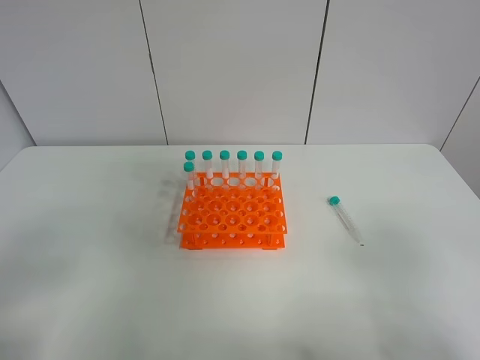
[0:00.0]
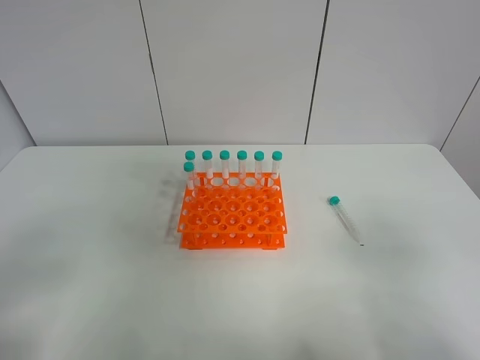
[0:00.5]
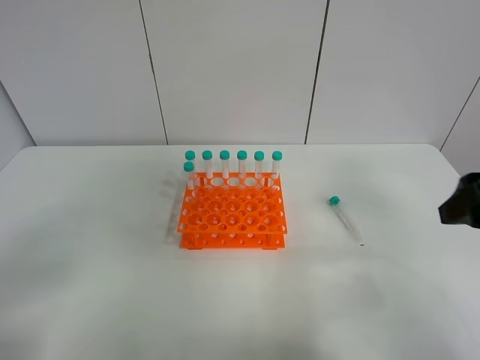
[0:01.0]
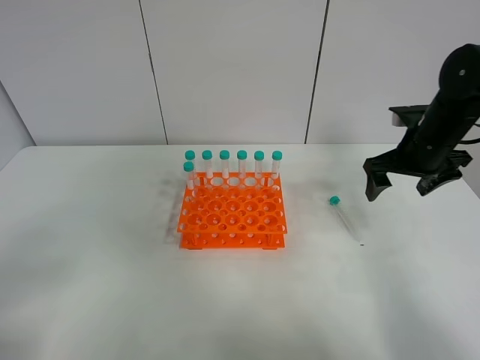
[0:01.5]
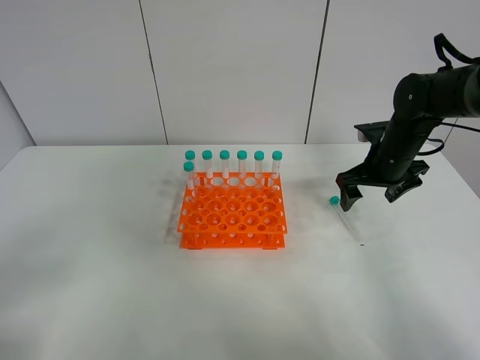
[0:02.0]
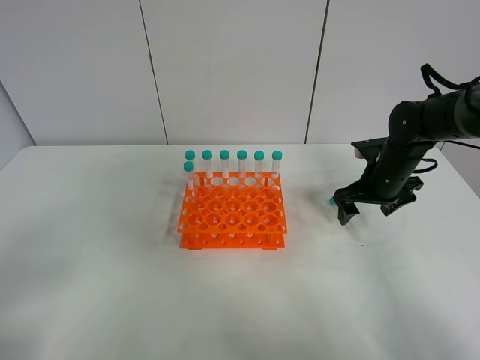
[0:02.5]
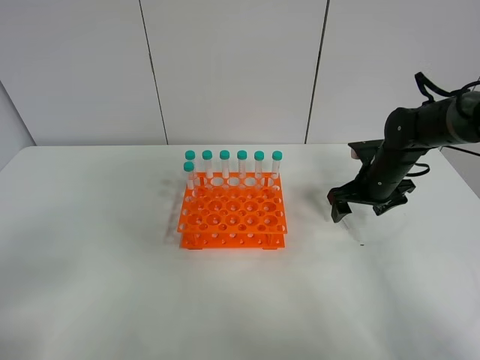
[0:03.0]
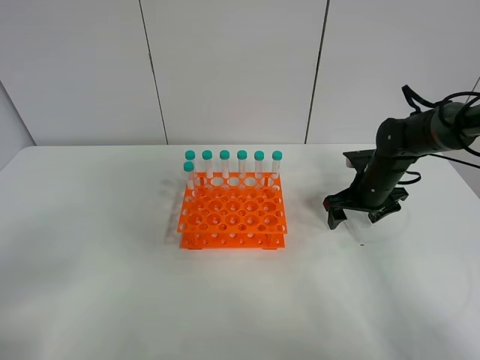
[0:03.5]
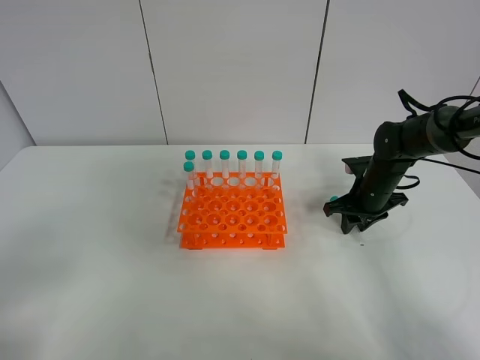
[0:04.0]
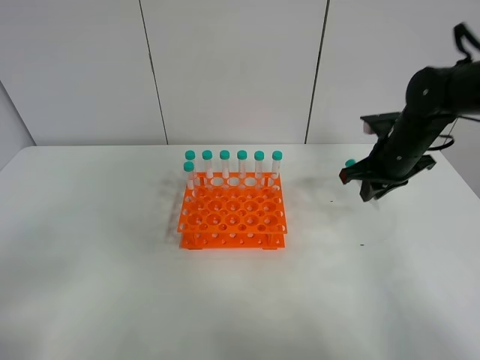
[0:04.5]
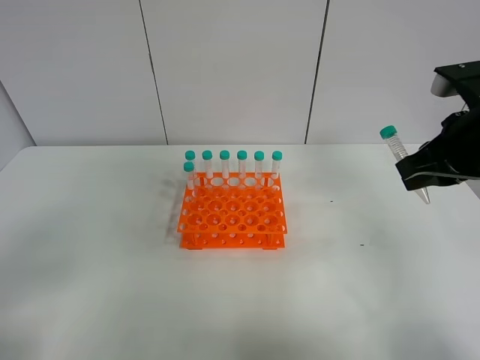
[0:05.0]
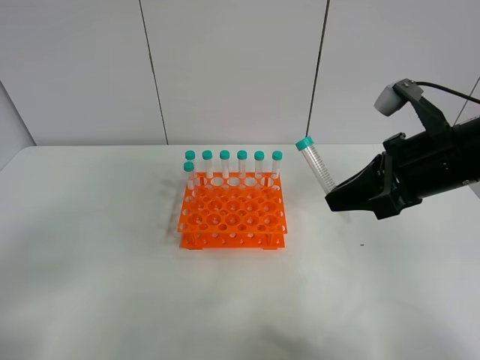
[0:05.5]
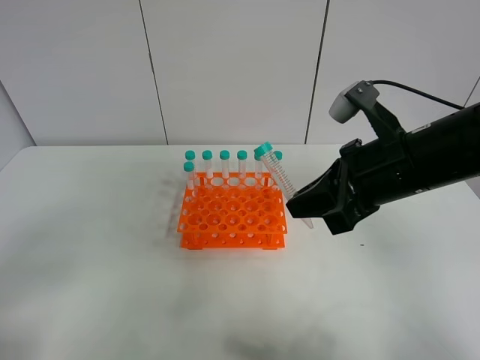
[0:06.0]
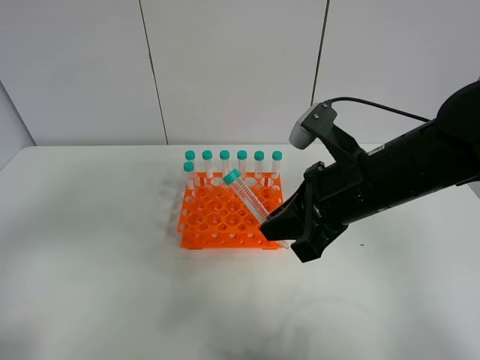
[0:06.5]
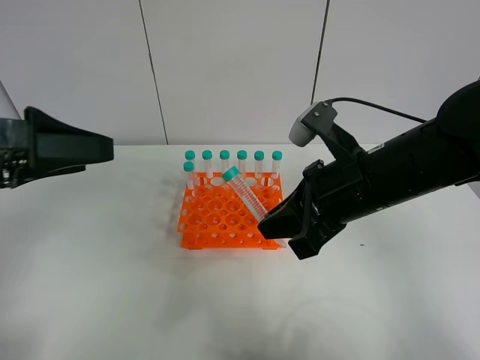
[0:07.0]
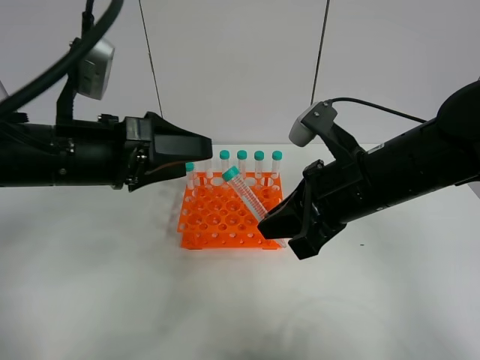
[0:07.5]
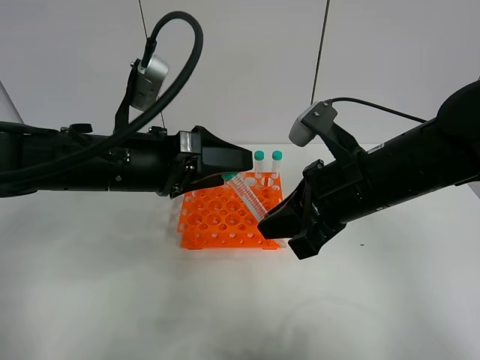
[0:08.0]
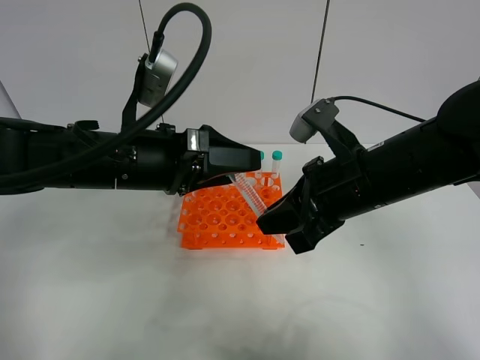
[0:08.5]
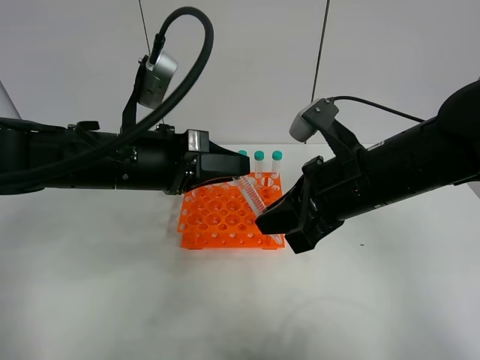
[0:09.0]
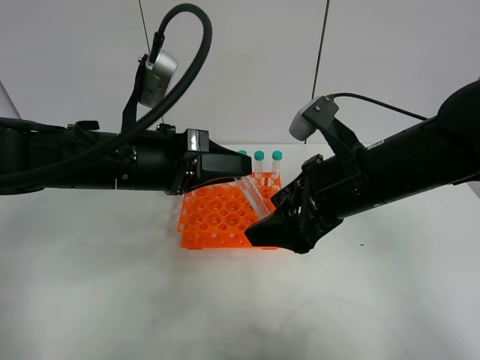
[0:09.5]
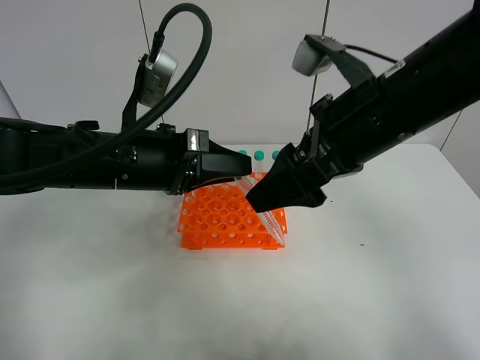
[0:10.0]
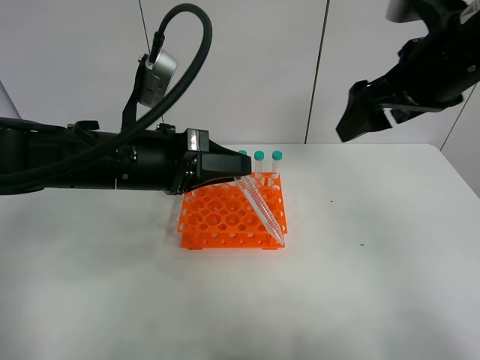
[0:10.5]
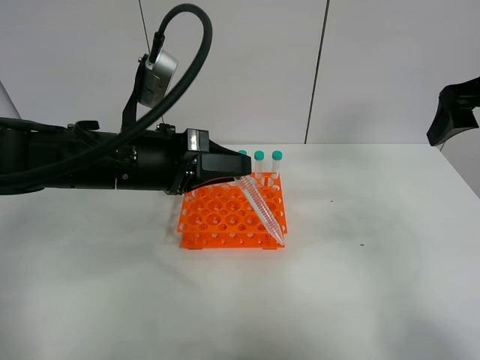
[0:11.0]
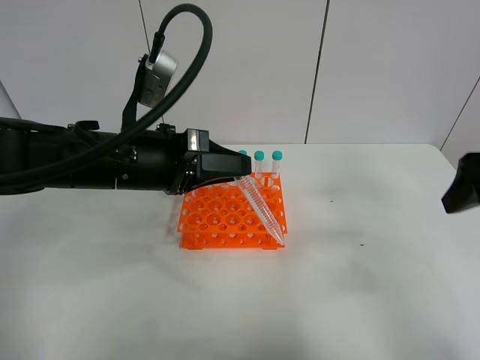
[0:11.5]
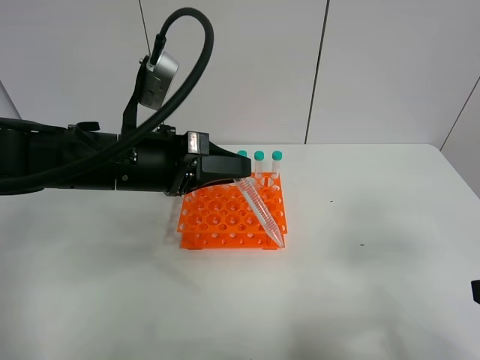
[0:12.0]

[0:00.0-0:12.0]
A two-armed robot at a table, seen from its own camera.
Task of the whole recording: Put the test tube on the table back onto the test tube rack.
Step, 0:00.0 to 0:04.5: Pick up the test tube with the right gripper.
Step, 0:05.0 to 0:10.0: Move the test tube from the right gripper to the left gripper.
0:00.0 to 0:02.0: The right gripper is displaced forward by about 40 cm.
0:02.0 to 0:04.0: The right gripper heads downward, covering some 5 cm, and closes.
0:04.0 to 0:06.0: The right gripper travels upward, backward and to the left by approximately 25 cm.
0:06.0 to 0:08.0: The left gripper shifts about 30 cm forward and to the right.
0:08.0 to 0:10.0: The right gripper moves upward, about 10 cm, and opens up; the left gripper closes its fingers.
0:10.0 to 0:12.0: The right gripper heads backward, to the right and downward, covering approximately 25 cm.

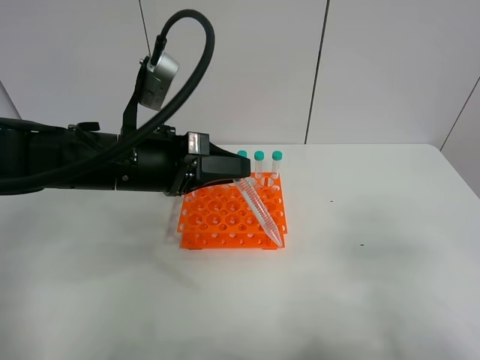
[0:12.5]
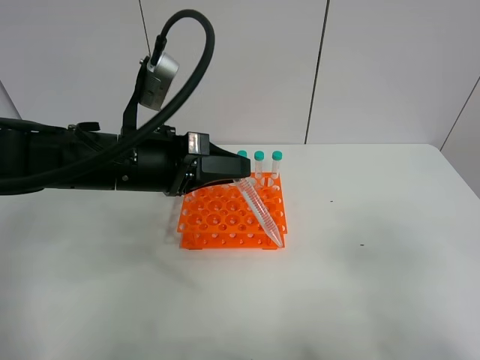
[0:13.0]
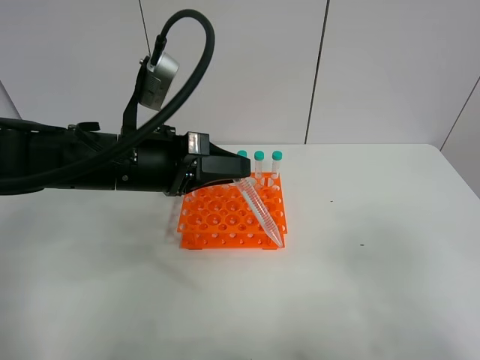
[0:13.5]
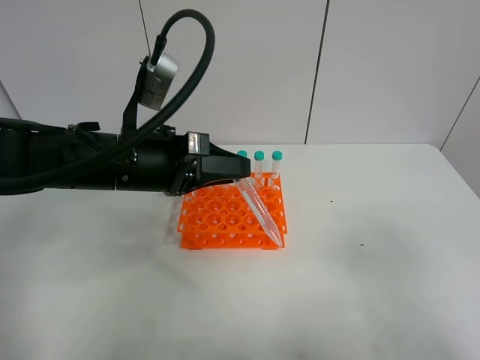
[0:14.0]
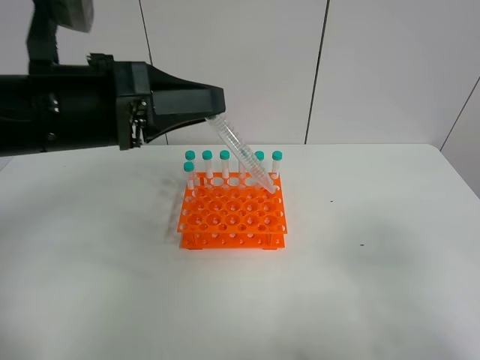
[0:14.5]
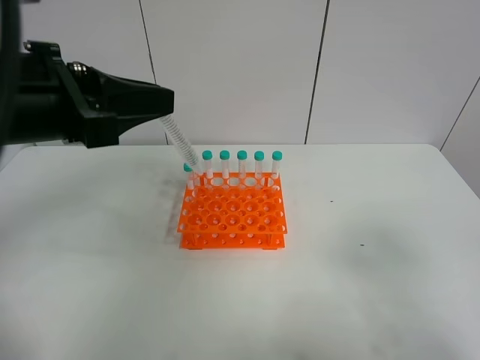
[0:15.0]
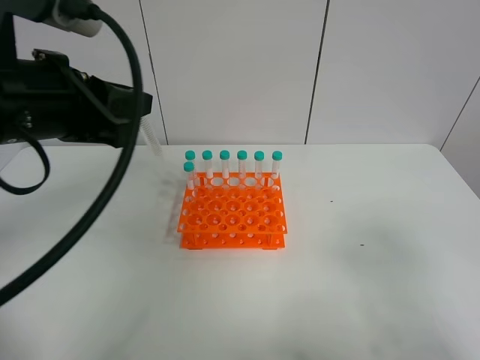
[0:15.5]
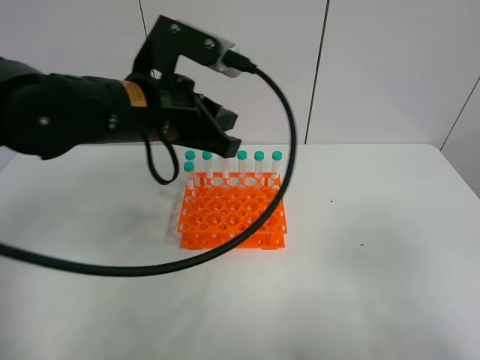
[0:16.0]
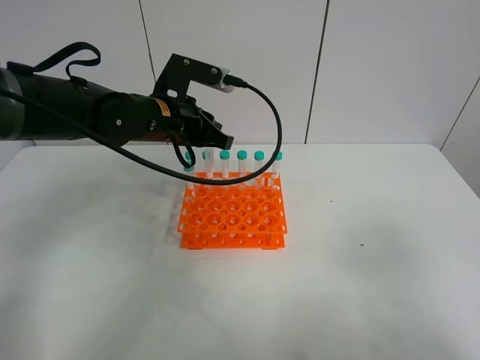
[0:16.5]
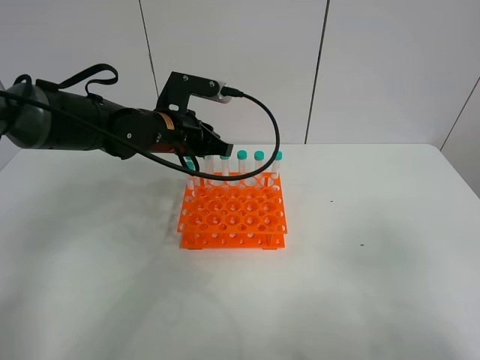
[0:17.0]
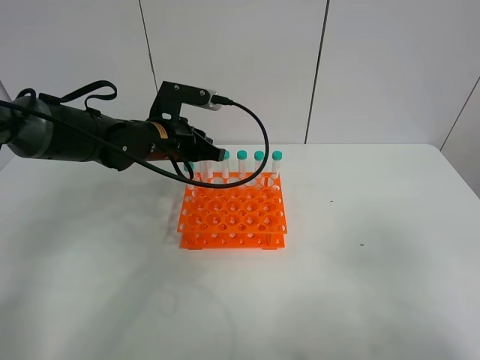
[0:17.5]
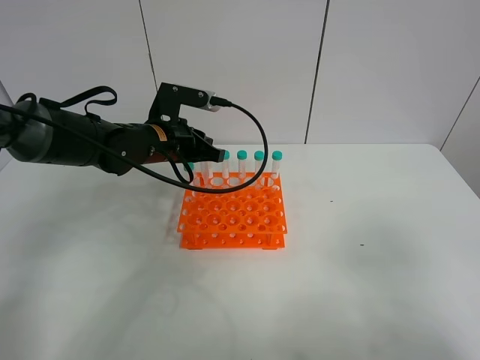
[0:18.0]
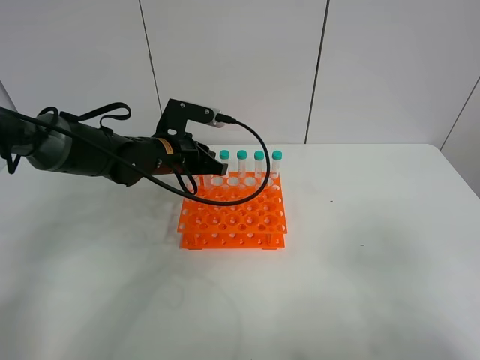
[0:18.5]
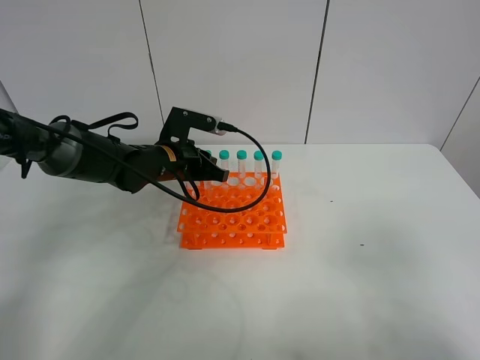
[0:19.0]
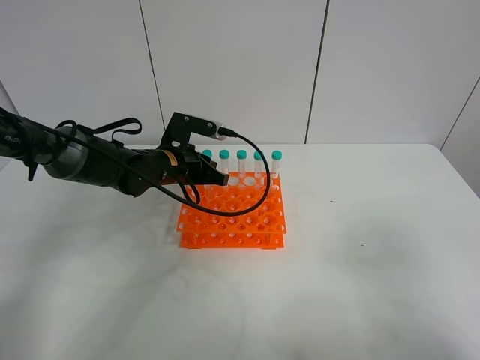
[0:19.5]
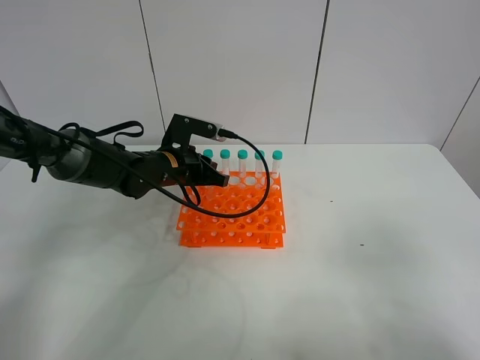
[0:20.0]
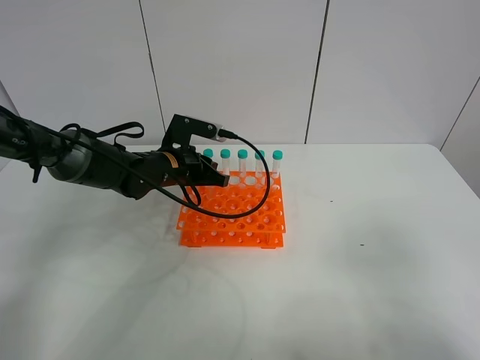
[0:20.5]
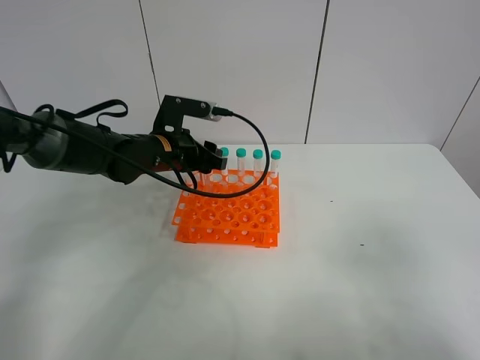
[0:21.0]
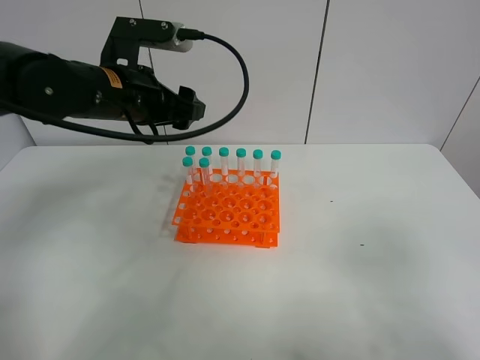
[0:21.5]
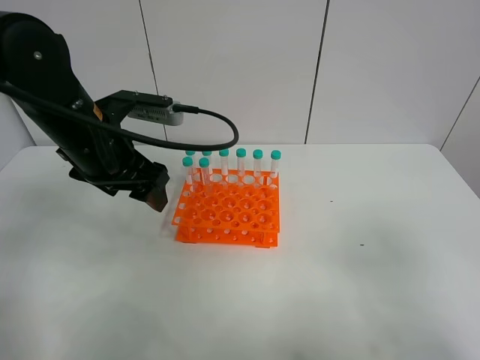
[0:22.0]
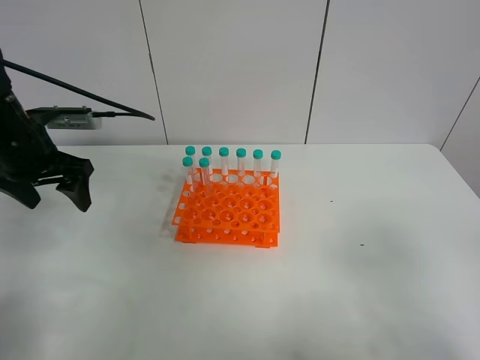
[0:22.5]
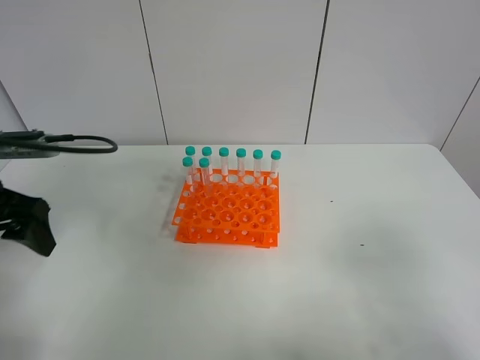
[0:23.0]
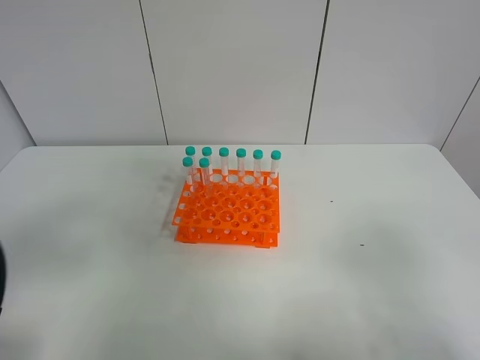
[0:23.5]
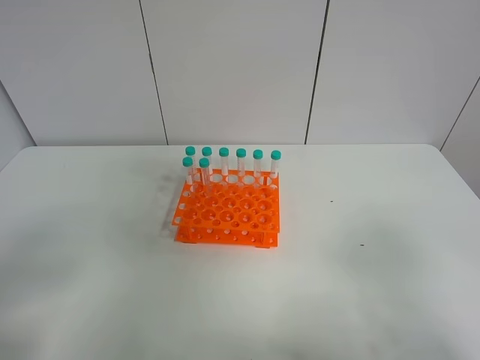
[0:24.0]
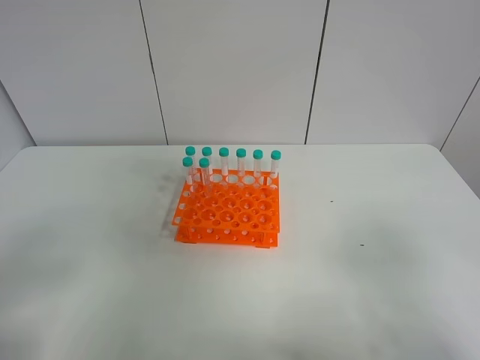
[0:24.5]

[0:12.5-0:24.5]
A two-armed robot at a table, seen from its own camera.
Task of the whole recording: Put the test tube on the table back onto the test tube rack.
Step, 0:12.5 to 0:21.5: Place the test tube on the test tube rack with the left gripper.
0:12.5 to 0:14.5: The left gripper is displaced upward by roughly 10 cm.
0:14.5 to 0:16.5: The left gripper travels forward and downward by about 15 cm.
0:16.5 to 0:18.5: The left gripper travels downward by approximately 5 cm.
0:18.5 to 0:20.5: The grippers move only a little.
0:20.5 to 0:22.5: The left gripper heads to the left and upward, covering about 20 cm, and opens its fingers.
0:22.5 to 0:24.5: The left gripper moves backward, about 30 cm.

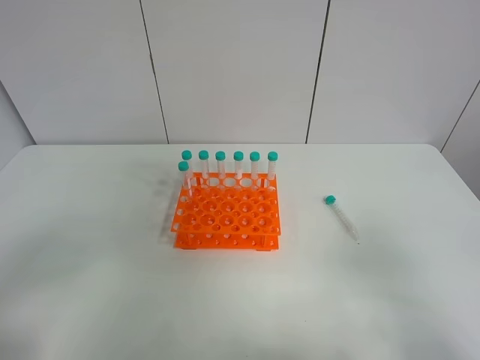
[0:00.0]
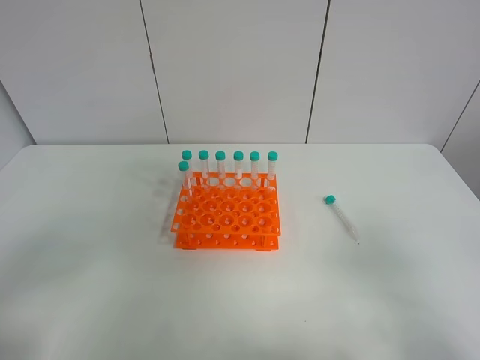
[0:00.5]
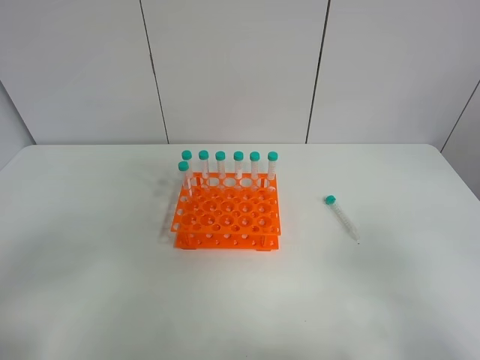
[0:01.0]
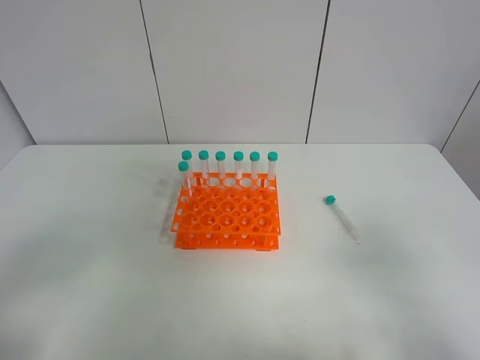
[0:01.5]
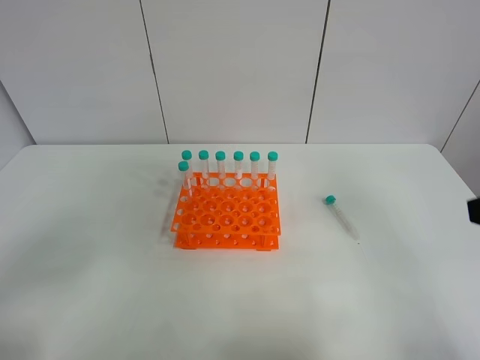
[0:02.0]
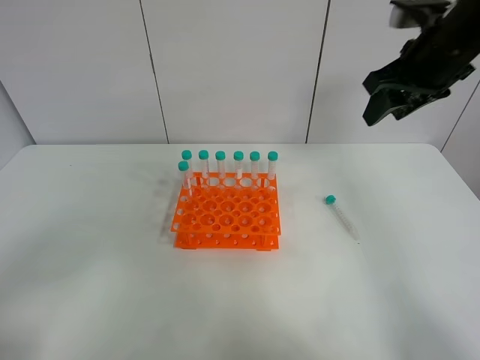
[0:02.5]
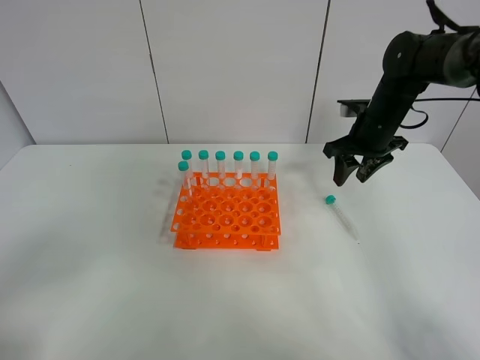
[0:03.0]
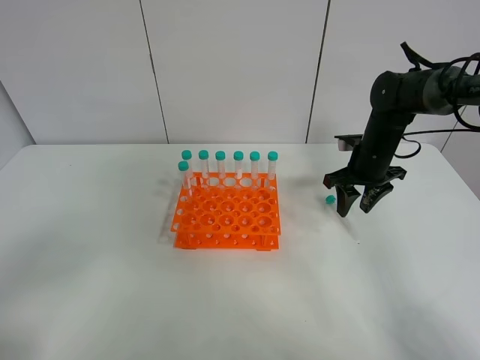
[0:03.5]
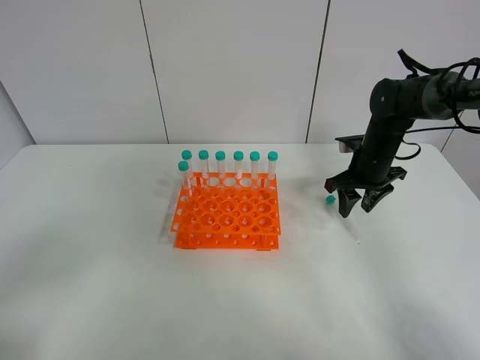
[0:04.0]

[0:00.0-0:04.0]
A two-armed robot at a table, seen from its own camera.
Task of the whole recording: Put the test tube on the table back onto the test tube rack.
0:02.0 to 0:04.0: The right gripper heads forward and downward, covering some 35 cm.
